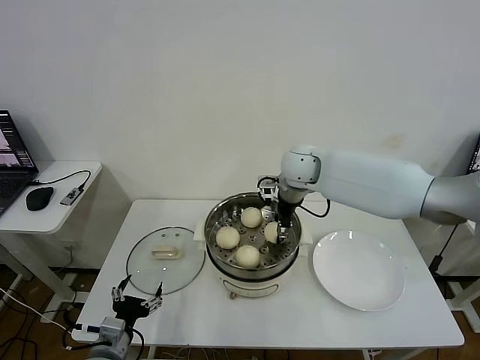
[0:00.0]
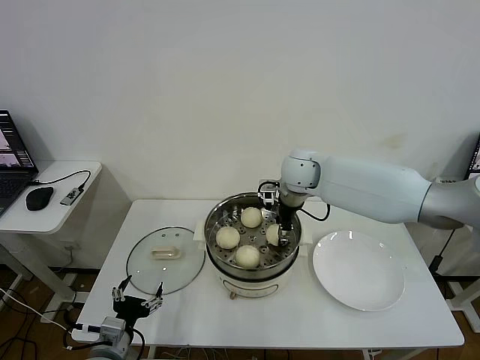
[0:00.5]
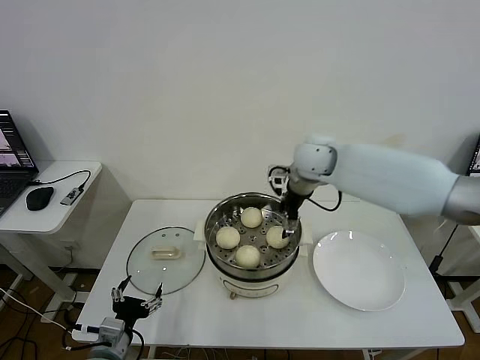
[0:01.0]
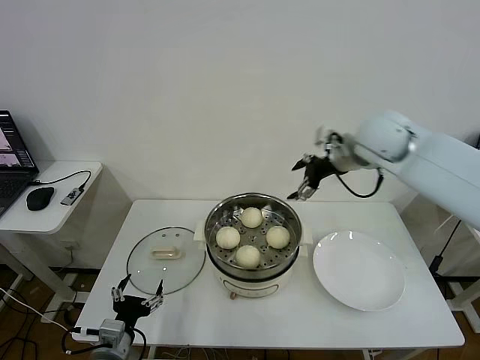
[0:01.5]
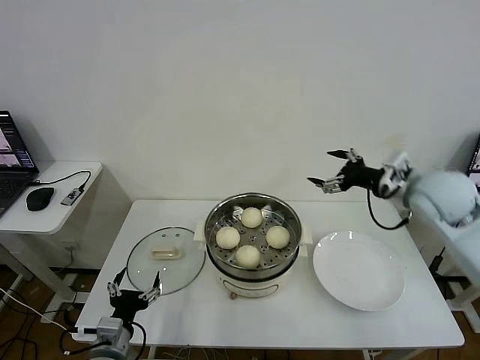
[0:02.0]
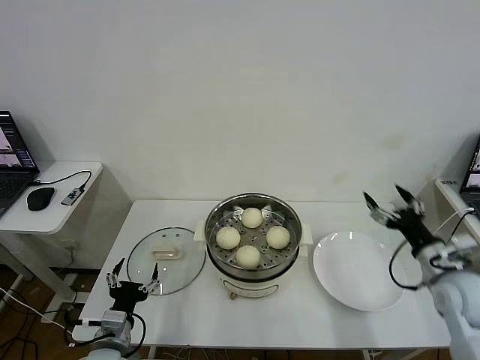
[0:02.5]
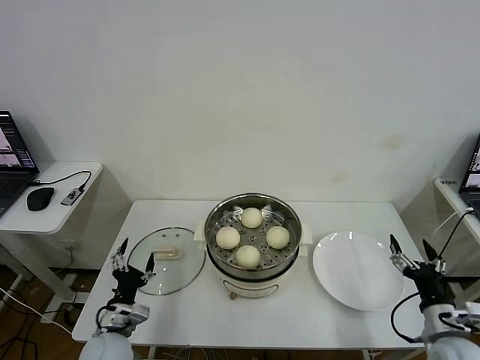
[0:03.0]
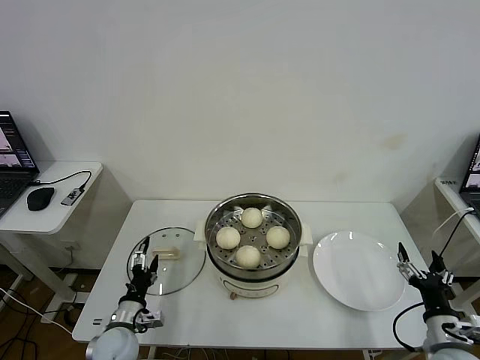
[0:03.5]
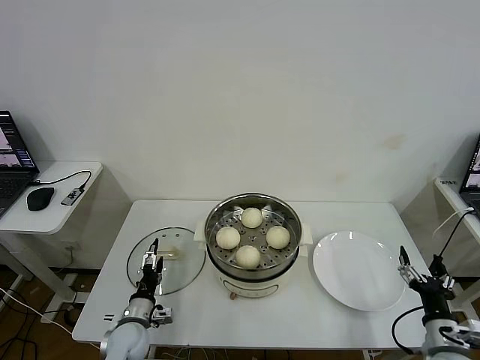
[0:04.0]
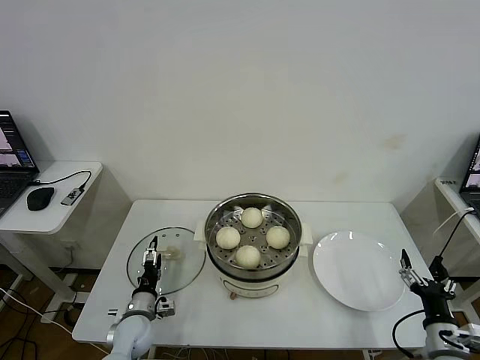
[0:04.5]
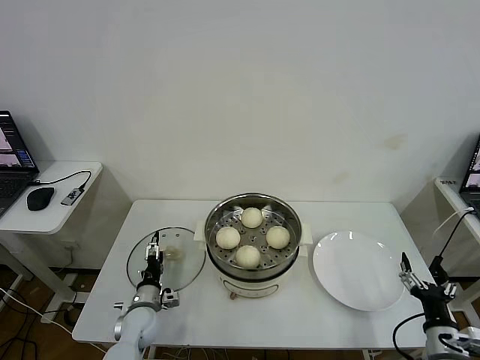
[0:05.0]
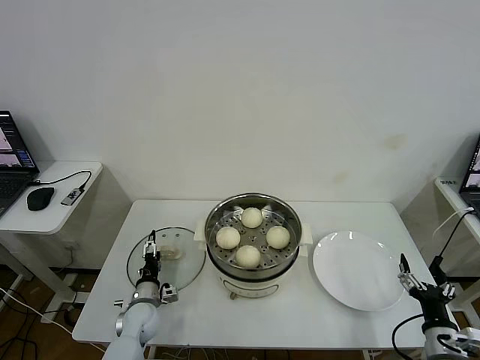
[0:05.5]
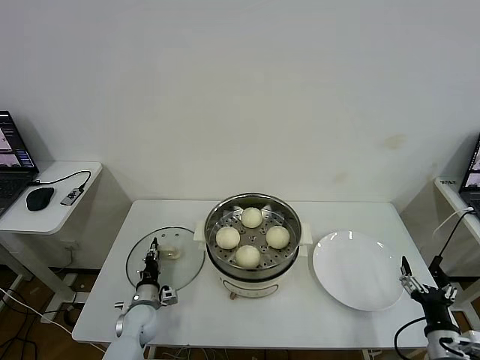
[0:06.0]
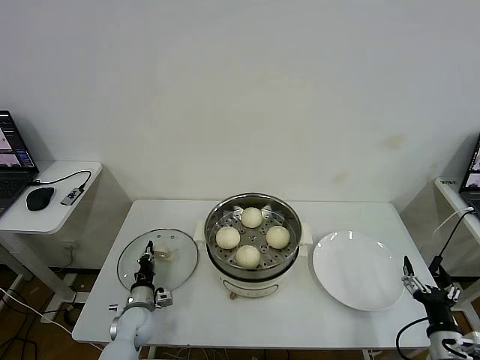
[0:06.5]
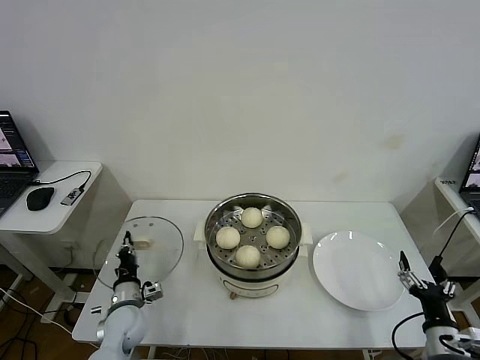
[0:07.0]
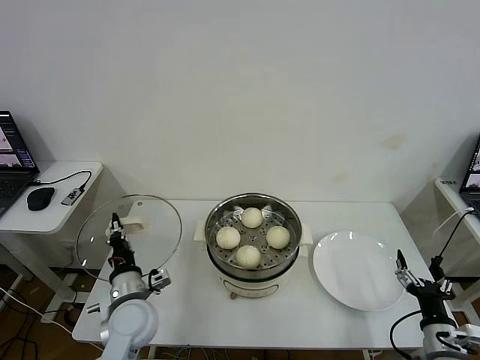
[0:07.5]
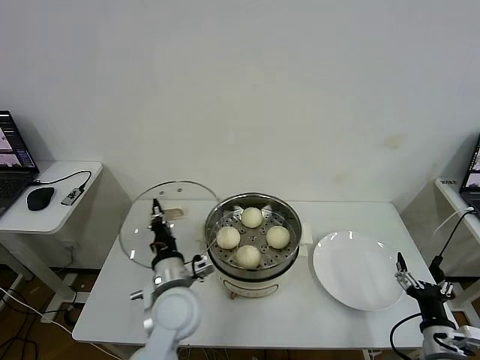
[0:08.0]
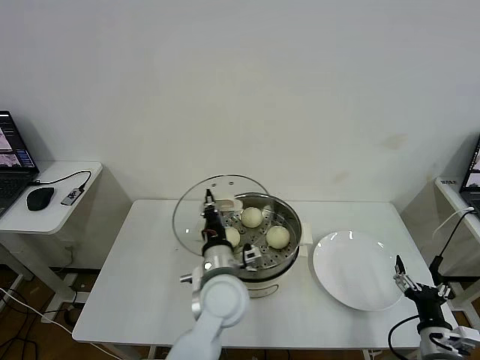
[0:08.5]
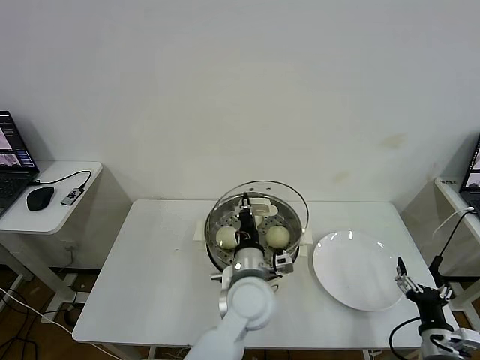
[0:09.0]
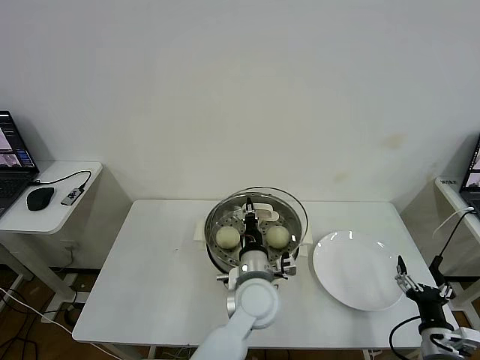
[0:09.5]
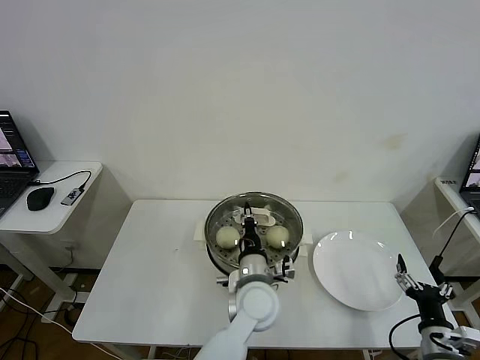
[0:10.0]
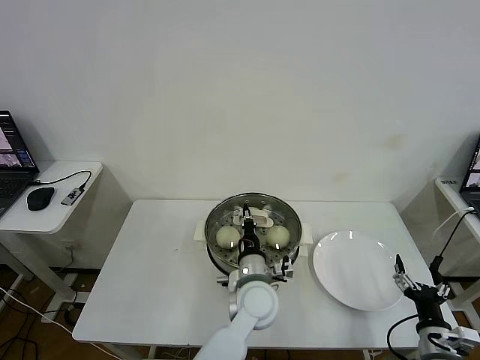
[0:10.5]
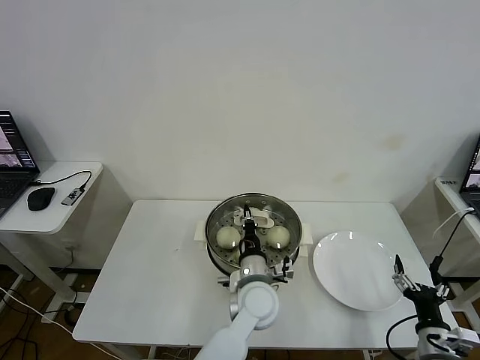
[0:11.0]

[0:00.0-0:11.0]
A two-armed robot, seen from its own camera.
Task of the whole recording: take steamed baozi put them in steamer then cover it.
Step, 0:01.5 to 0:06.5: Grasp the pot lid with left gripper.
0:00.0 to 0:02.0: The right gripper shifts approximately 25 cm to the right and backward, and opens its fingers.
0:02.0 to 0:03.5: The right gripper goes approximately 35 cm downward and backward. Meanwhile the left gripper heads forward and downward, covering roughly 10 cm.
0:03.5 to 0:05.5: The left gripper heads forward and downward, covering approximately 10 cm.
0:05.5 to 0:07.5: The left gripper travels upward by about 15 cm, and closes its fingers.
0:07.5 to 0:09.0: The left gripper heads to the right, covering approximately 25 cm.
0:09.0 to 0:11.0: The left gripper is displaced downward by roughly 5 cm.

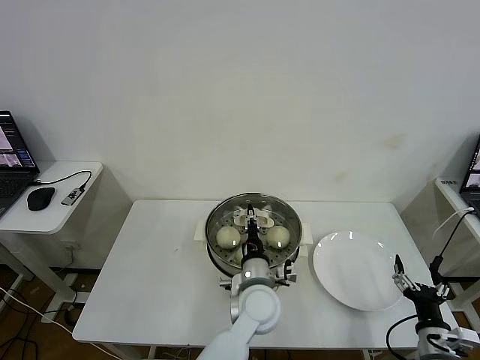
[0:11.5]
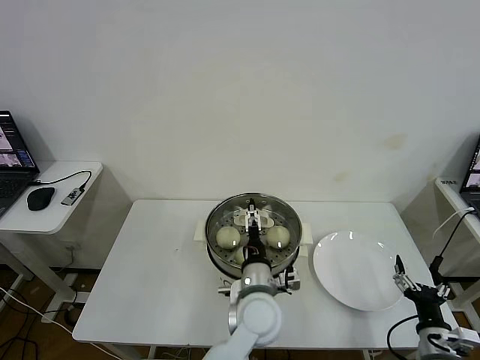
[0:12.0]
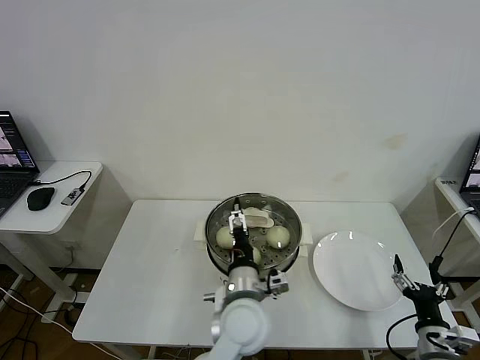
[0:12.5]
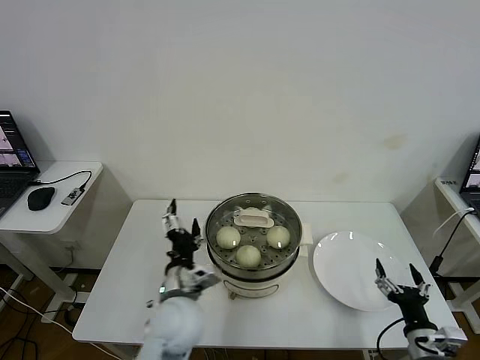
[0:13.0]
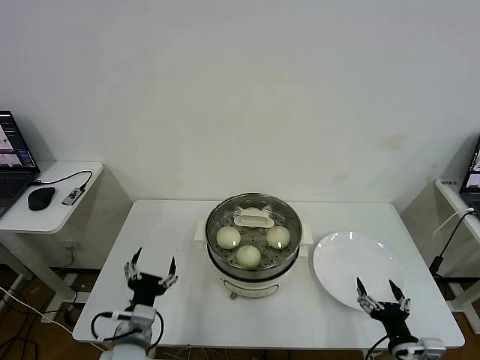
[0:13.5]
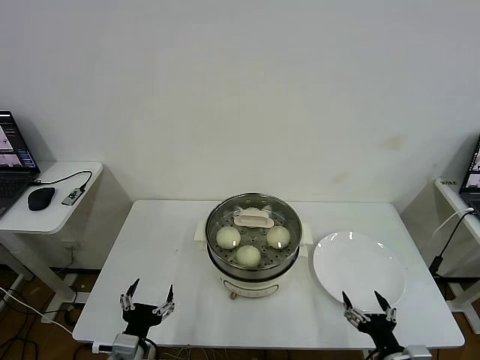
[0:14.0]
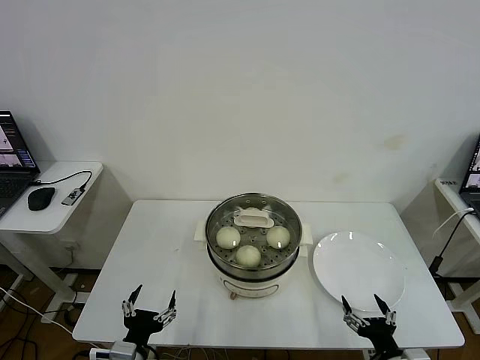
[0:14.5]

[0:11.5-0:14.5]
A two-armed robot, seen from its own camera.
Task of the whole recording: take steamed baozi put them in steamer then cover it.
0:11.5 to 0:13.0: The left gripper travels to the left by some 15 cm, and opens up.
0:13.0 to 0:14.5: The left gripper heads to the left, backward and downward, covering about 20 cm. The right gripper is displaced to the left by roughly 5 cm.
